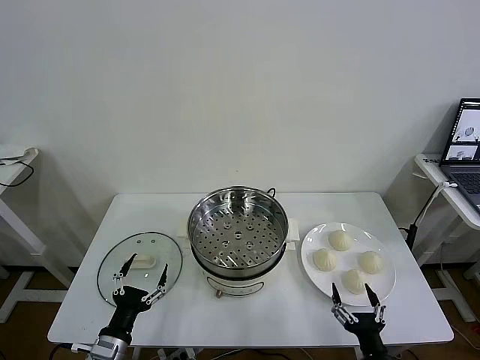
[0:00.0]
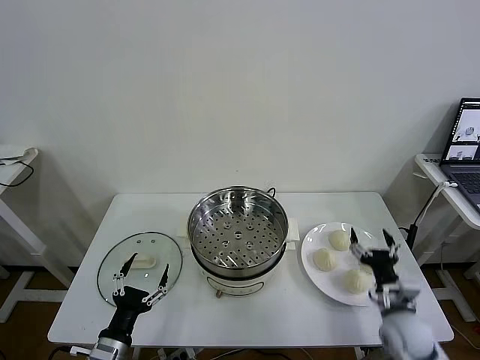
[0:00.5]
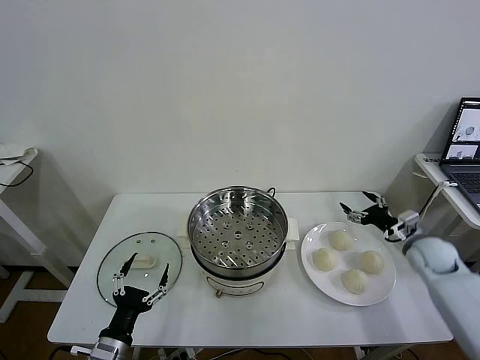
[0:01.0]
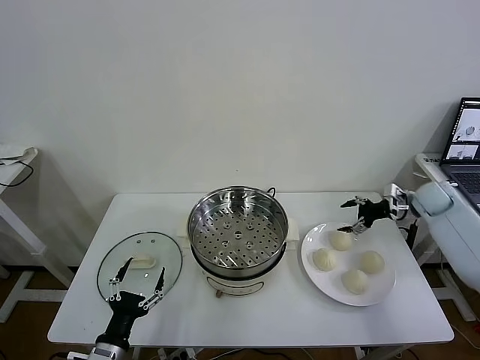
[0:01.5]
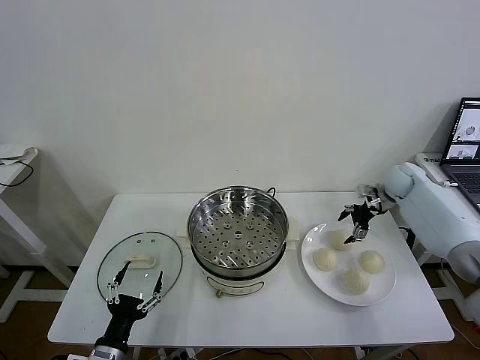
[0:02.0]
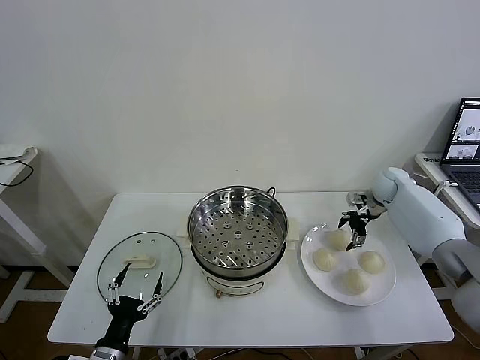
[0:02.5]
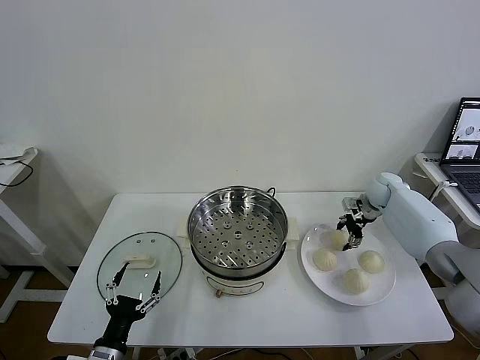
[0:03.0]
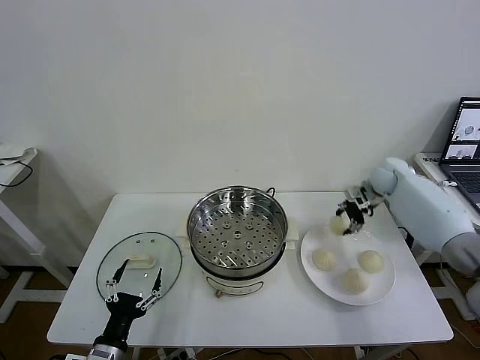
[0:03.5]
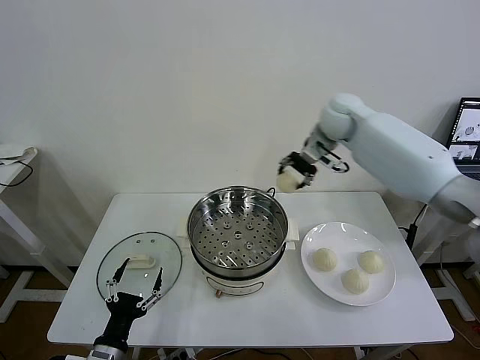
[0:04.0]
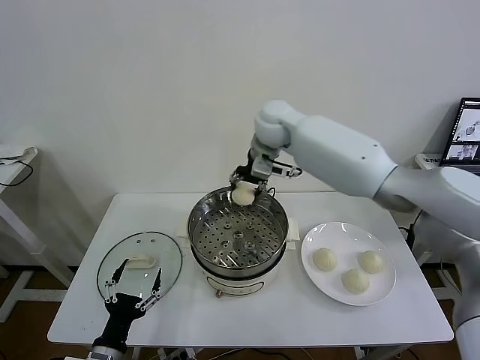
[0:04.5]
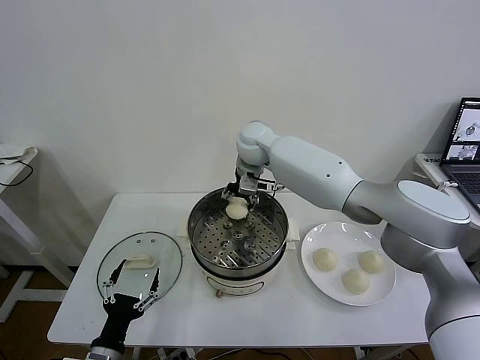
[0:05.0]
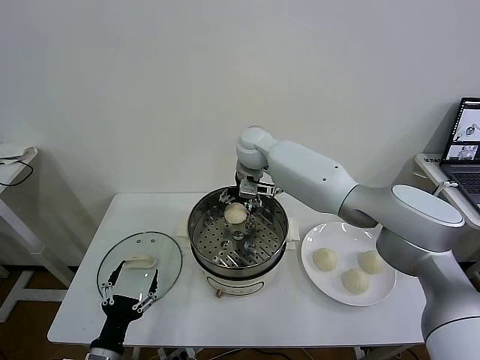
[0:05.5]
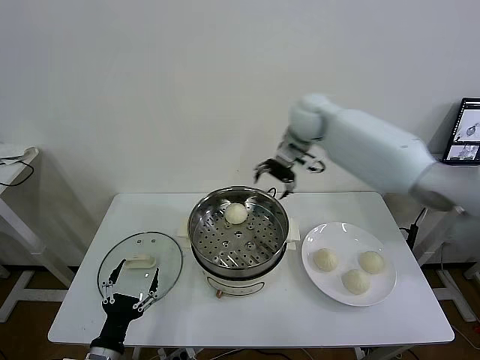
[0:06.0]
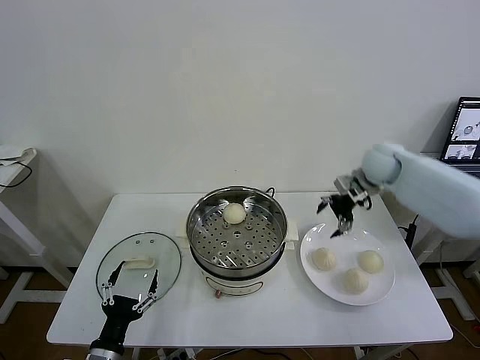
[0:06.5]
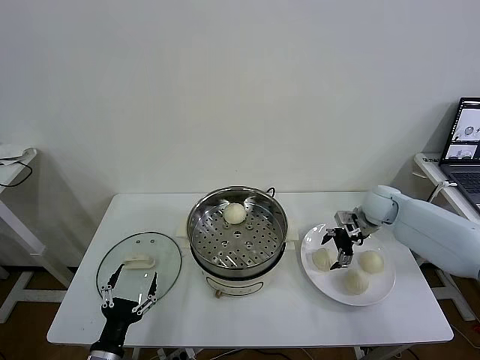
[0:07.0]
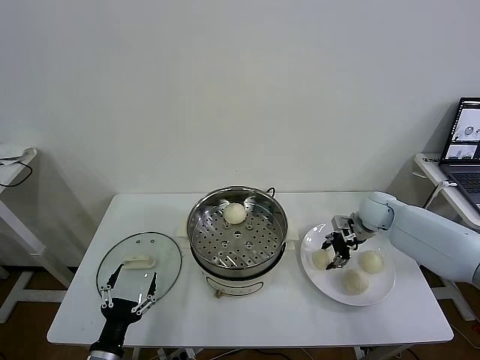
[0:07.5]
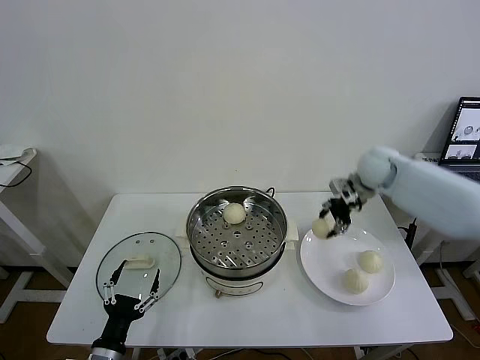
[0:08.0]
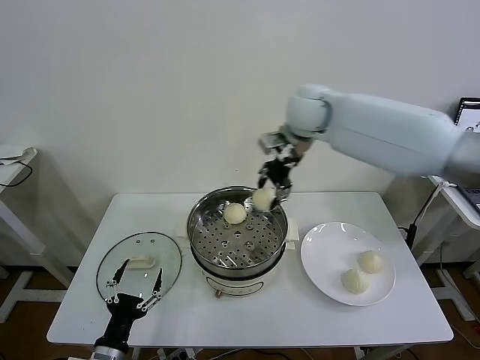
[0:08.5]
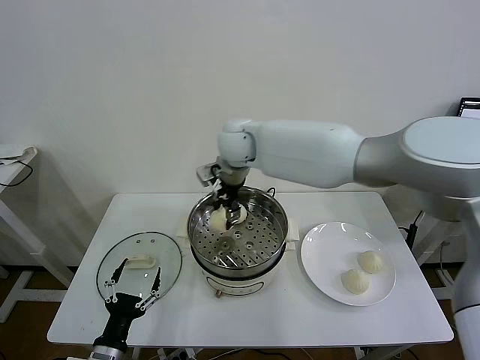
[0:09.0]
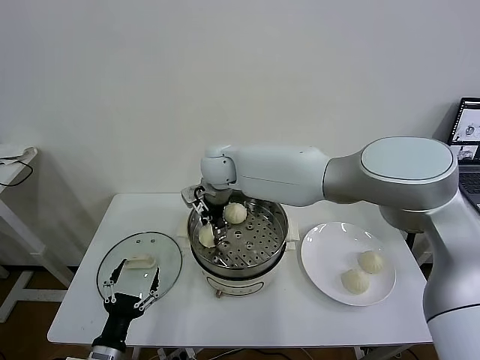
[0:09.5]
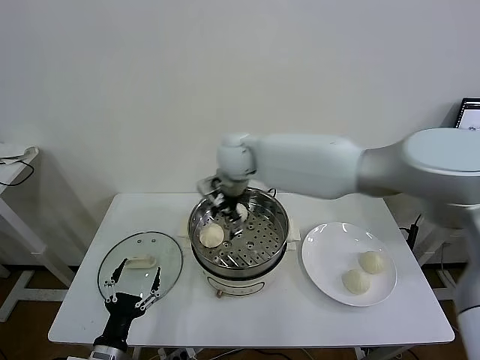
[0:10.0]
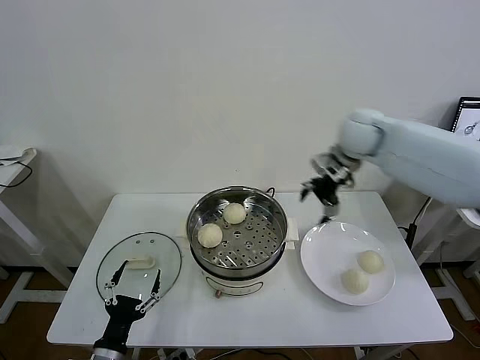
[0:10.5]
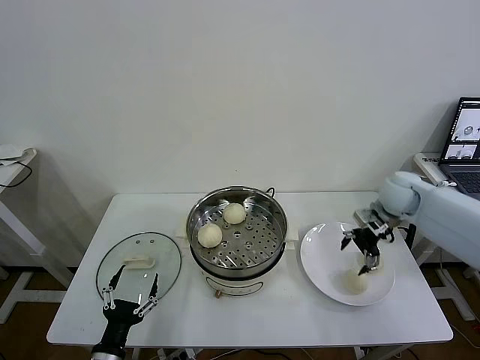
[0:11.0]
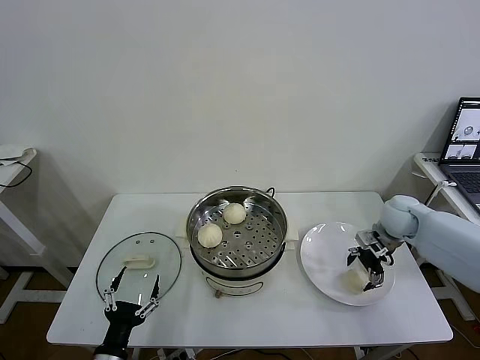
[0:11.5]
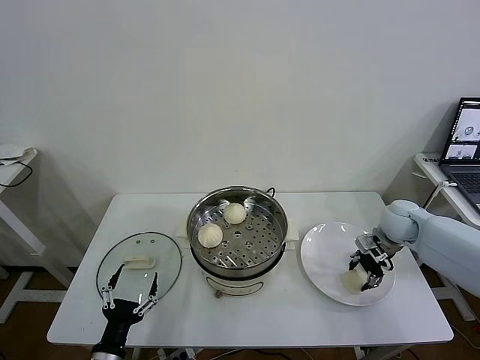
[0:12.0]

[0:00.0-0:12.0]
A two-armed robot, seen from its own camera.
Task of the whole recording: take steamed baozi put them in steamer then cover it.
Step, 0:00.0 to 0:03.0: Grasp the baozi in the plate with right gripper.
Step, 0:03.5 to 0:05.5: Place the baozi on the steamer with right gripper.
Step, 0:06.0 to 0:07.5: Grasp the baozi in the plate with right gripper.
Step, 0:08.0 to 0:09.5: Place the baozi on the steamer with right gripper.
Step, 0:10.0 to 0:12.0: Grasp the baozi in the plate with right gripper.
0:02.0 to 0:04.0: The right gripper travels to the left and upward by approximately 30 cm, and closes up.
0:04.0 to 0:06.0: The right gripper reaches roughly 15 cm to the left, then returns, and opens.
0:06.0 to 0:08.0: The right gripper shifts approximately 10 cm to the right, reaches approximately 25 cm downward, then returns, and closes.
0:08.0 to 0:10.0: The right gripper heads to the left, covering approximately 30 cm, and opens up.
0:10.0 to 0:12.0: The right gripper is displaced to the right and downward by about 40 cm, and closes.

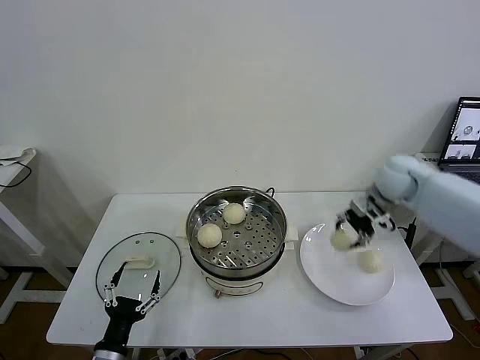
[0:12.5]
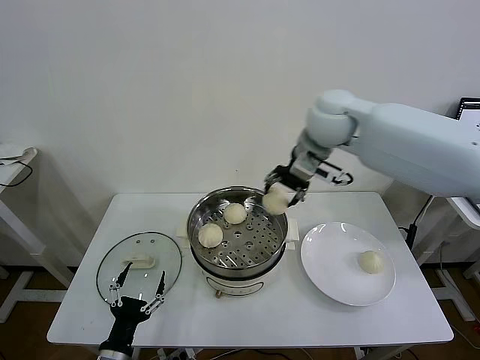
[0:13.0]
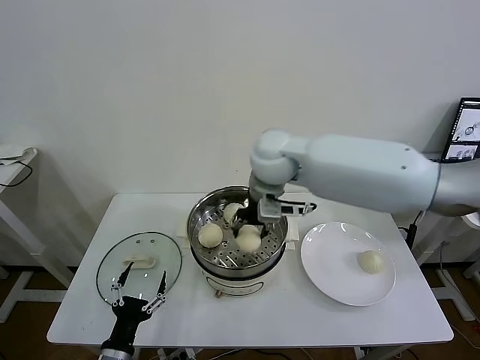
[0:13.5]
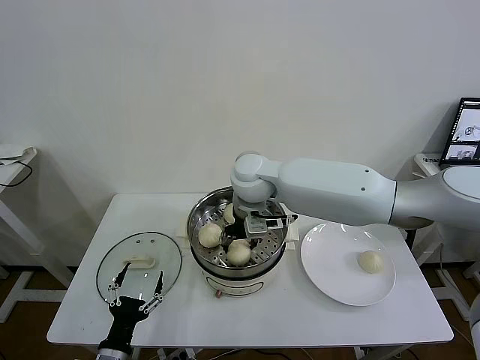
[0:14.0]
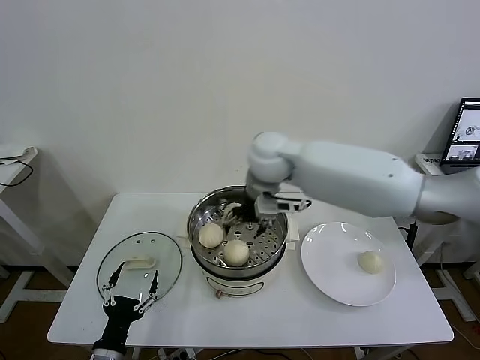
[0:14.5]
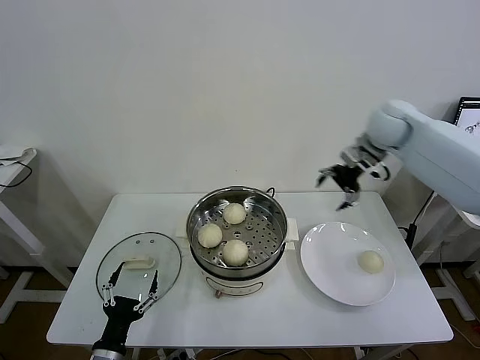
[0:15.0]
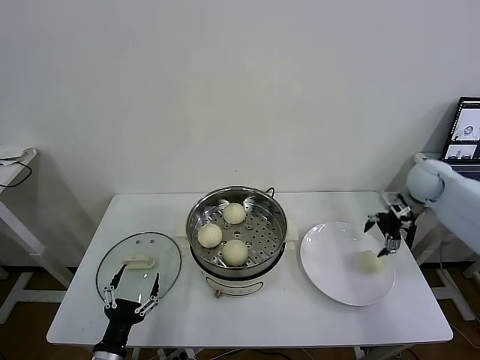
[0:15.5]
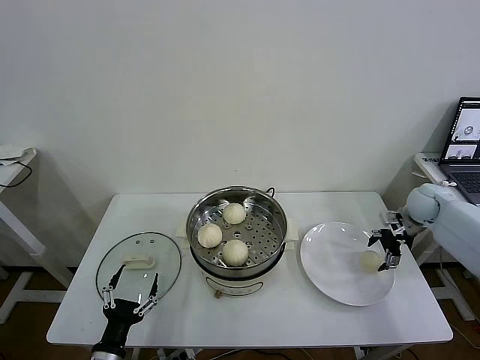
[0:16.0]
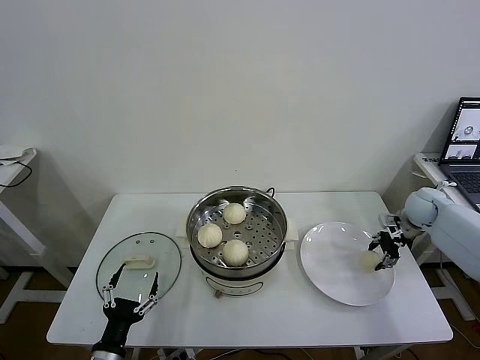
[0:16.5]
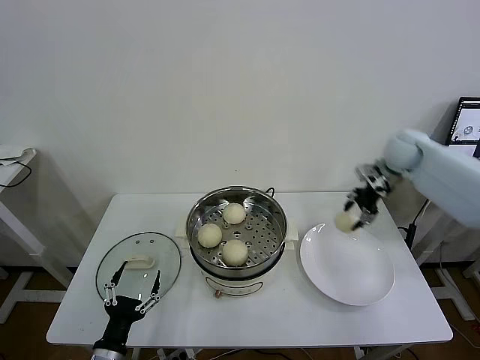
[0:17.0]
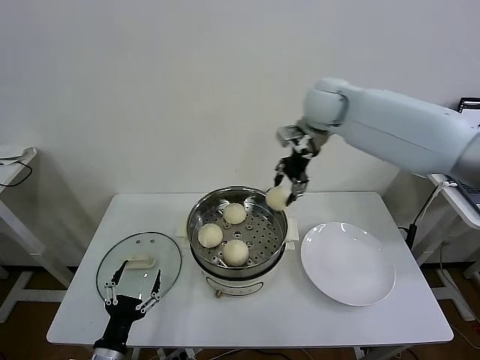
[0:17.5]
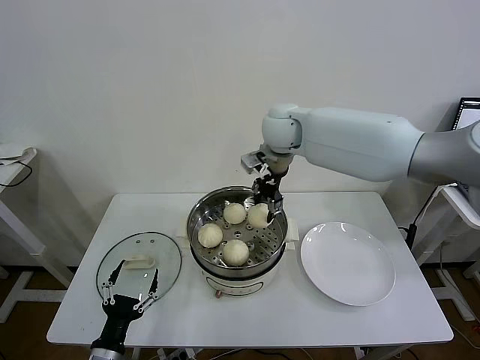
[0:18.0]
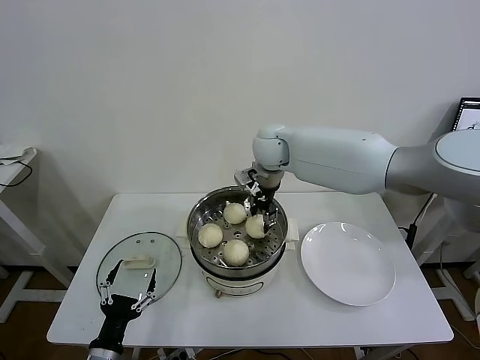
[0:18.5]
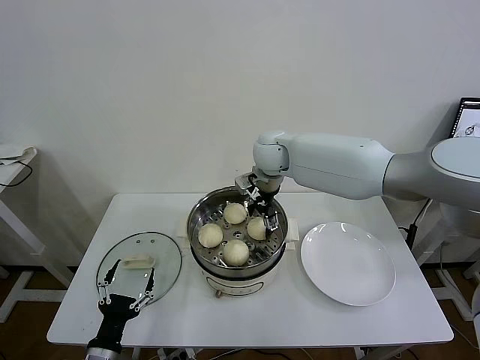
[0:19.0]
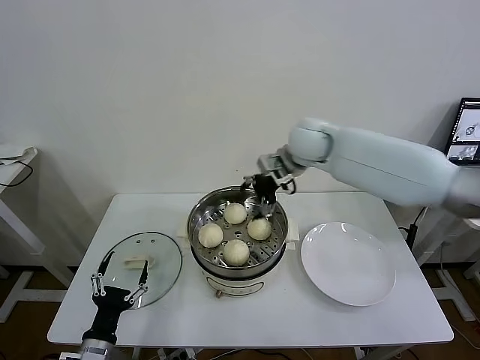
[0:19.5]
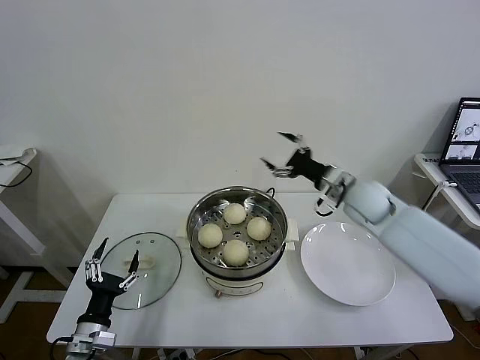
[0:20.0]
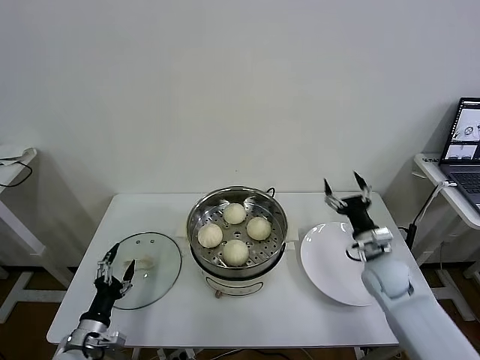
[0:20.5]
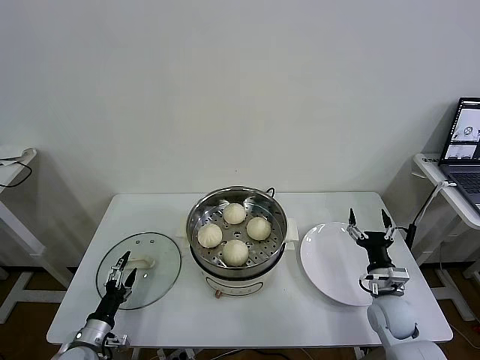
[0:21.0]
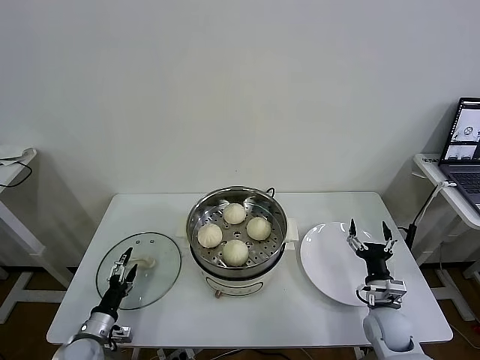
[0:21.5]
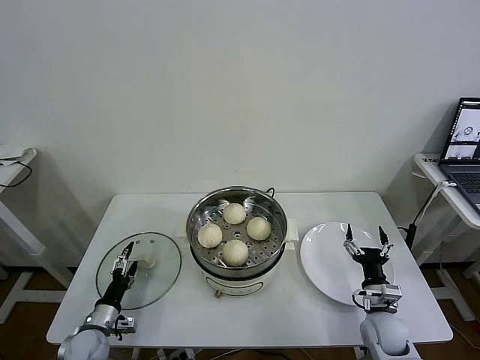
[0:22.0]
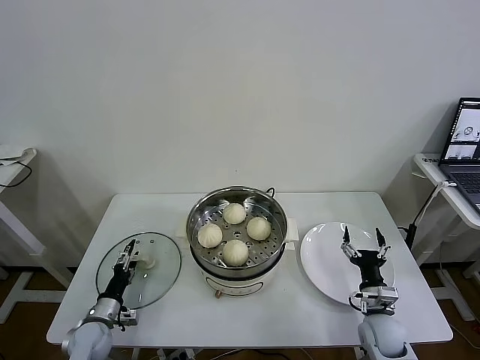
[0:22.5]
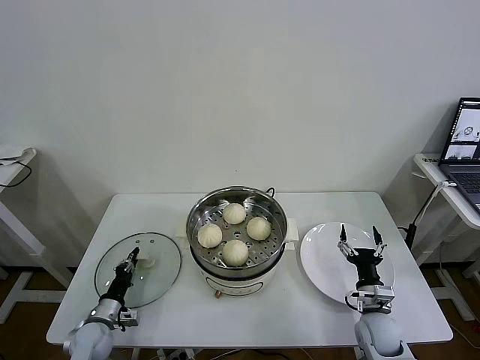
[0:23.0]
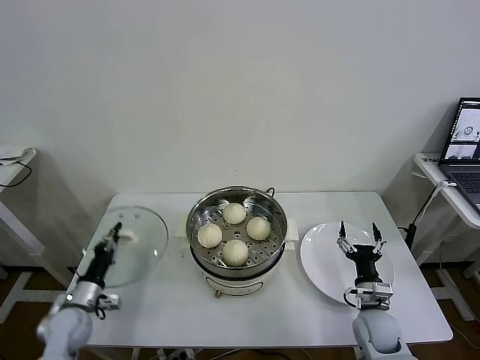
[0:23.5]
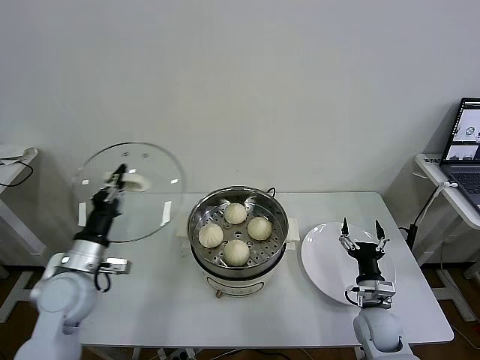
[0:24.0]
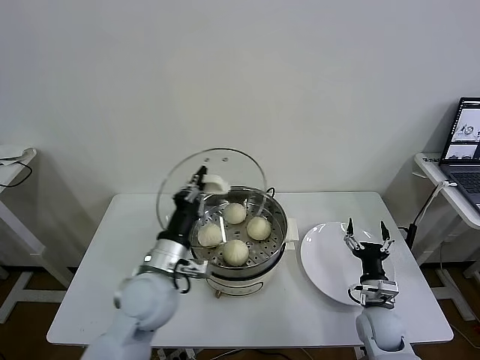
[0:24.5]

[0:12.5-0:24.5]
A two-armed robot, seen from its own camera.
Task of the whole recording: take steamed baozi put them in steamer then cover it.
Step, 0:12.5 to 0:14.0: Place the baozi on the steamer with right gripper.
Step, 0:14.5 to 0:16.5: Grasp the baozi in the plate with right gripper.
Step, 0:17.0 to 0:19.0: Place the baozi on the steamer with right gripper.
Step, 0:19.5 to 0:23.0: Grasp the pot lid with left gripper.
0:12.5 to 0:14.5: The right gripper is displaced to the left by about 25 cm, and opens up.
0:14.5 to 0:16.5: The right gripper is displaced to the right and downward by approximately 40 cm, and closes.
0:16.5 to 0:18.5: The right gripper travels to the left by some 40 cm.
0:18.5 to 0:20.5: The left gripper goes about 10 cm to the left and forward. The right gripper heads to the right, downward and backward, covering approximately 40 cm, and opens.
0:20.5 to 0:22.5: The left gripper goes about 10 cm forward and downward; the right gripper moves downward and backward, some 15 cm.
0:22.5 to 0:24.5: The left gripper moves upward and to the right, approximately 30 cm, and closes up.

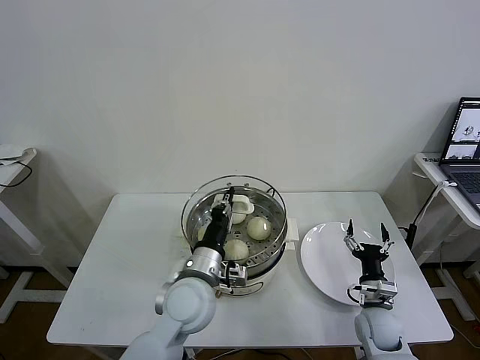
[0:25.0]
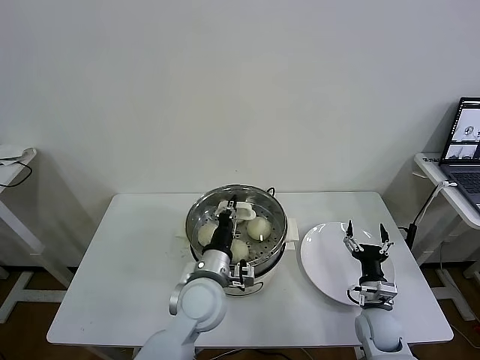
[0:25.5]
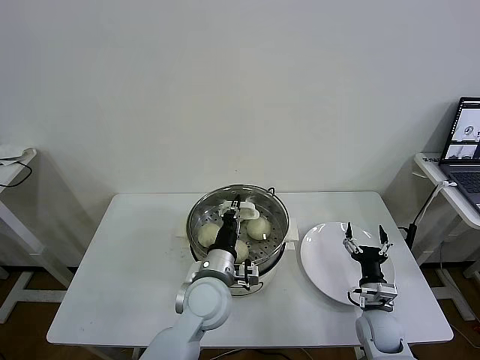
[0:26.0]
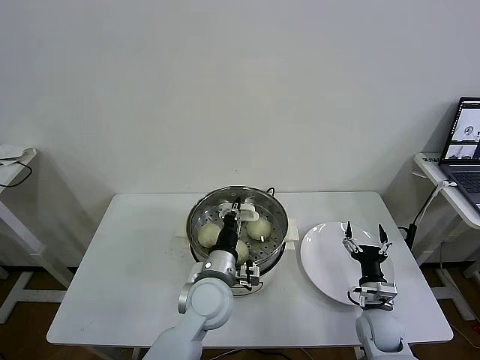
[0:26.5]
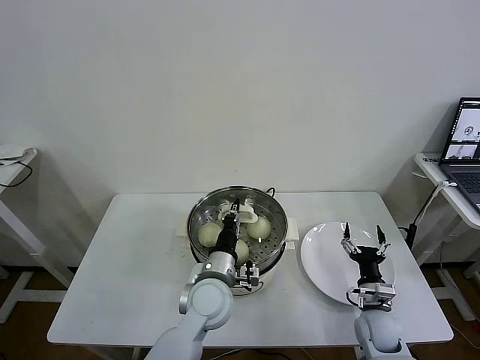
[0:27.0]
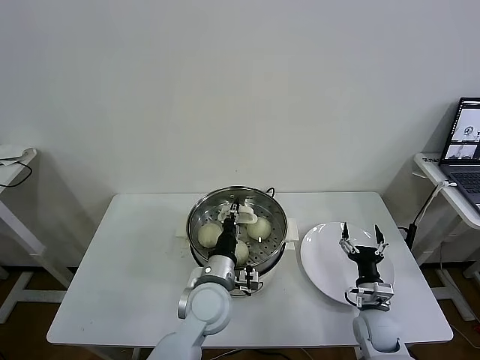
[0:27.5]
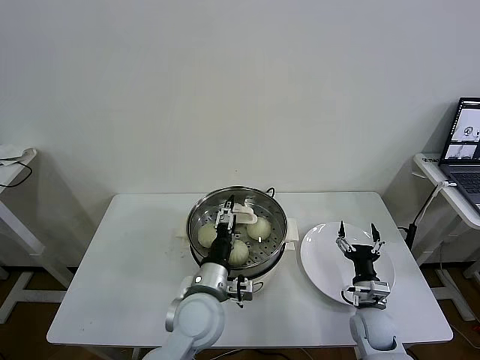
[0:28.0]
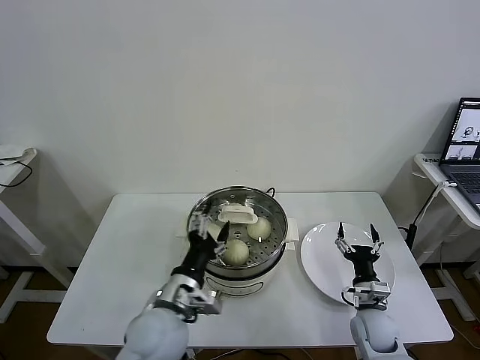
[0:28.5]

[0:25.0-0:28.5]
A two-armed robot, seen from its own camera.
Task of the whole recording: take steamed baozi put them in steamer then cover it.
Step, 0:25.0 to 0:28.0: Place the pot lid on the steamer with left gripper.
0:25.0 to 0:27.0: The left gripper ends up approximately 5 cm from where it was.
0:27.0 to 0:28.5: The left gripper heads backward and to the left, covering roughly 10 cm, and opens its fingers.
